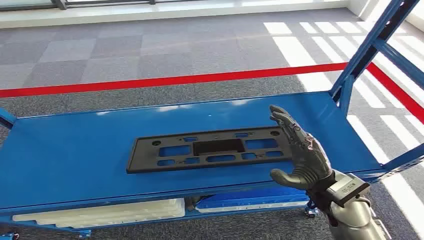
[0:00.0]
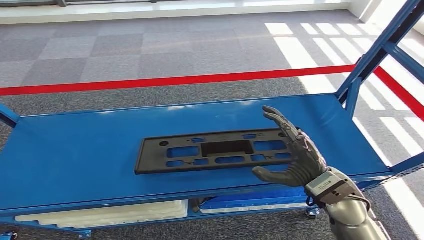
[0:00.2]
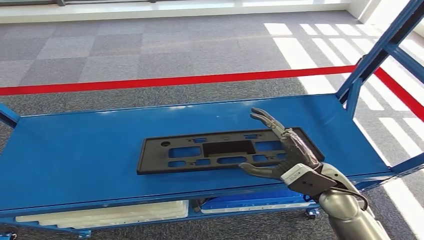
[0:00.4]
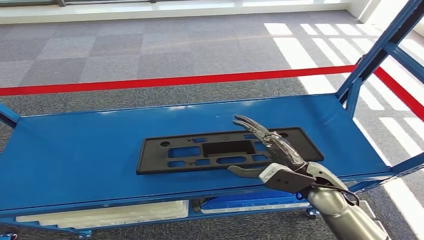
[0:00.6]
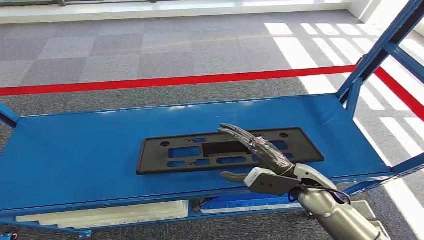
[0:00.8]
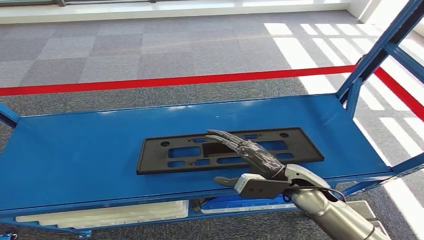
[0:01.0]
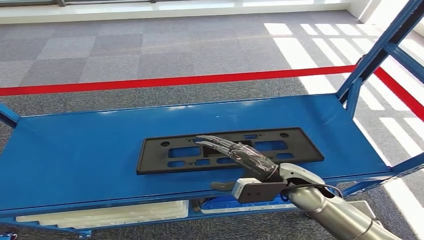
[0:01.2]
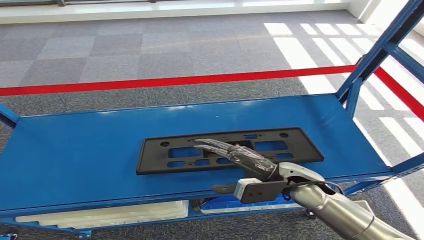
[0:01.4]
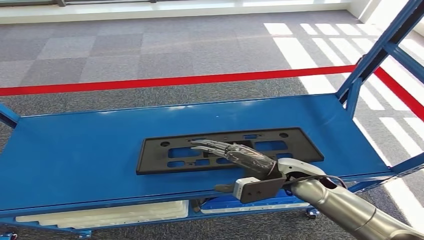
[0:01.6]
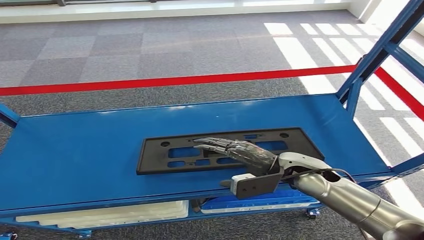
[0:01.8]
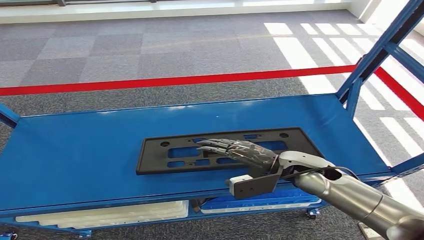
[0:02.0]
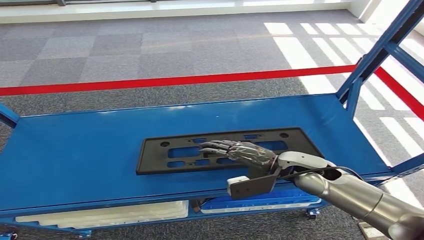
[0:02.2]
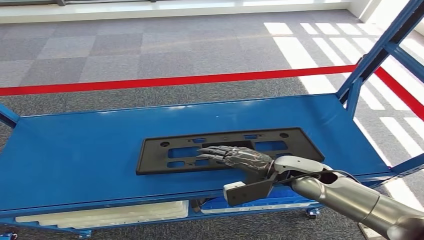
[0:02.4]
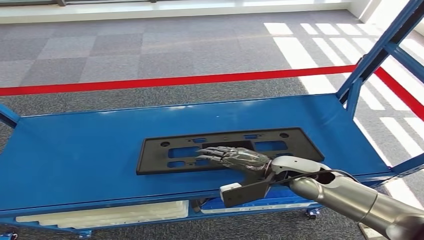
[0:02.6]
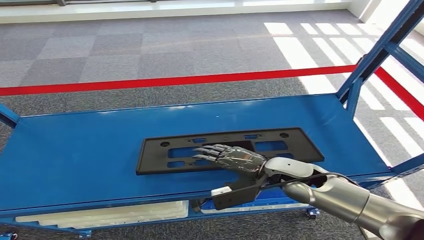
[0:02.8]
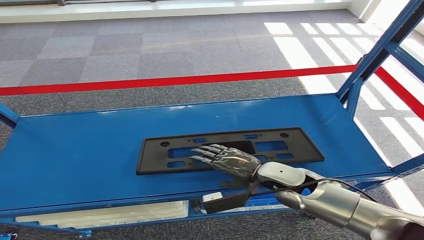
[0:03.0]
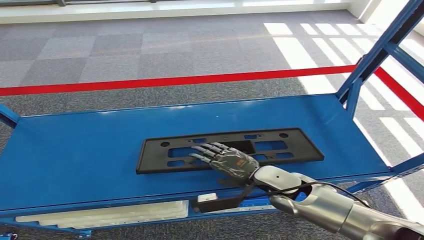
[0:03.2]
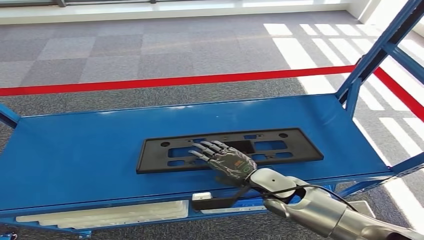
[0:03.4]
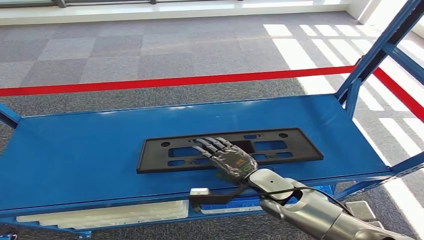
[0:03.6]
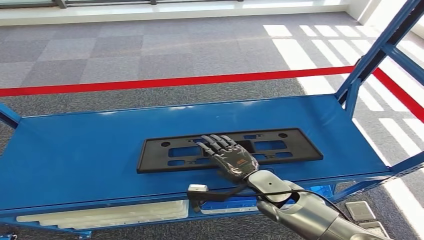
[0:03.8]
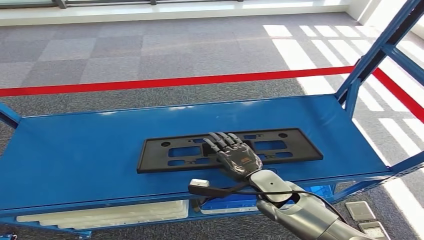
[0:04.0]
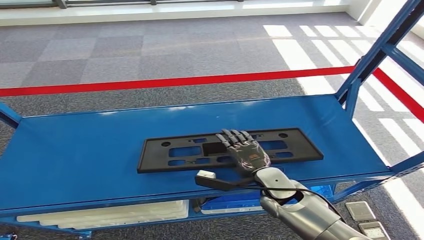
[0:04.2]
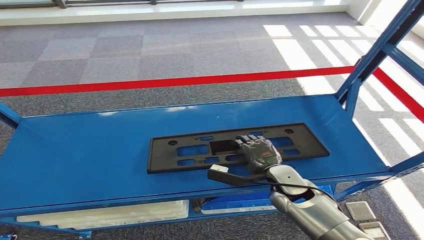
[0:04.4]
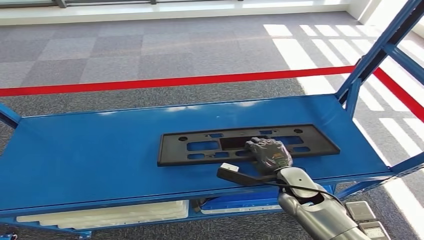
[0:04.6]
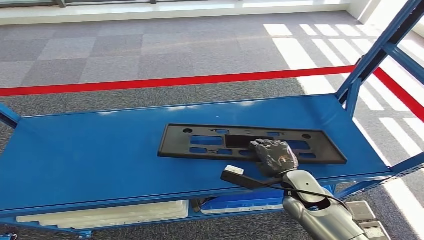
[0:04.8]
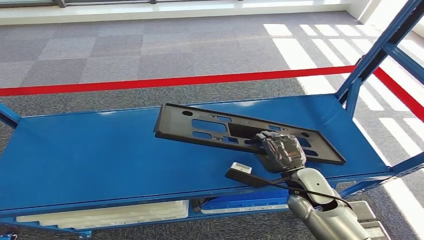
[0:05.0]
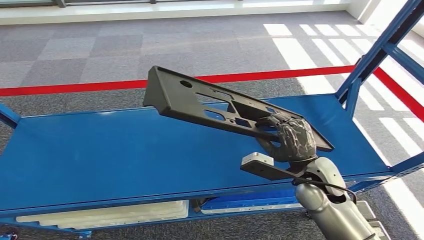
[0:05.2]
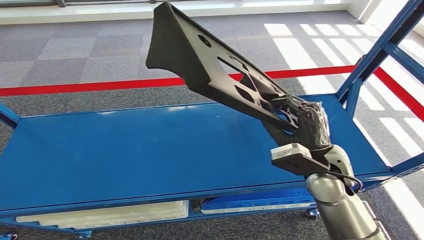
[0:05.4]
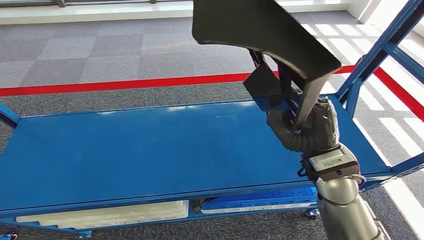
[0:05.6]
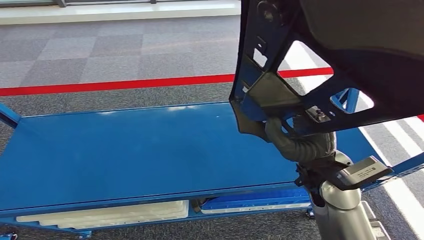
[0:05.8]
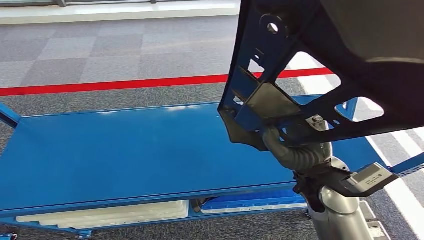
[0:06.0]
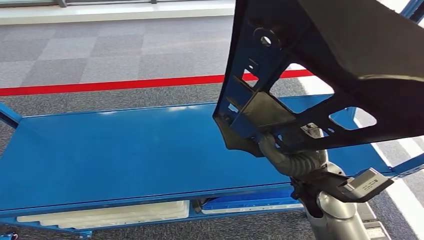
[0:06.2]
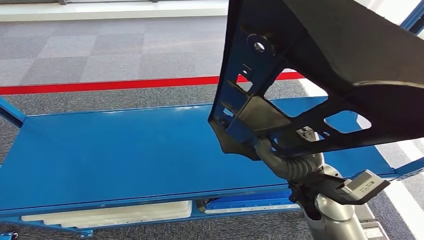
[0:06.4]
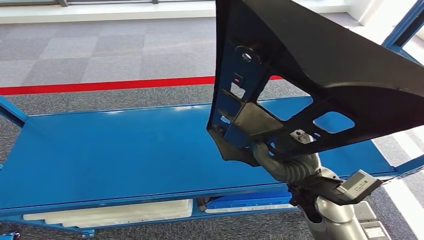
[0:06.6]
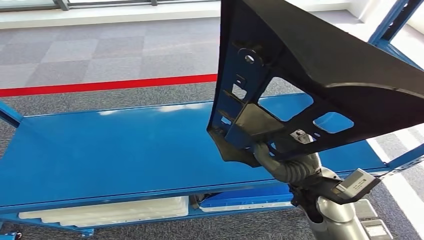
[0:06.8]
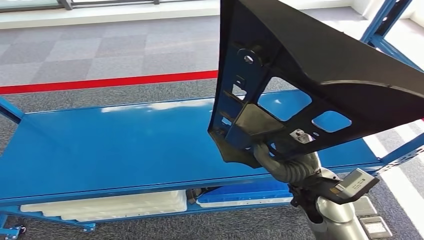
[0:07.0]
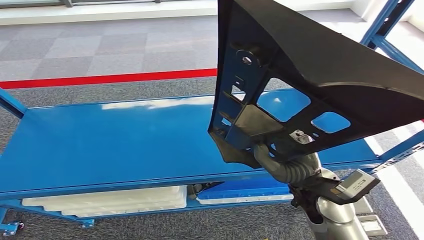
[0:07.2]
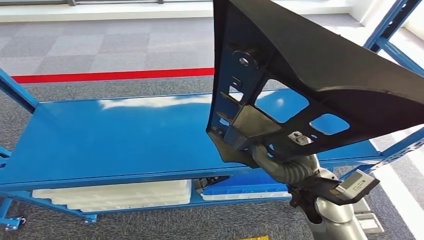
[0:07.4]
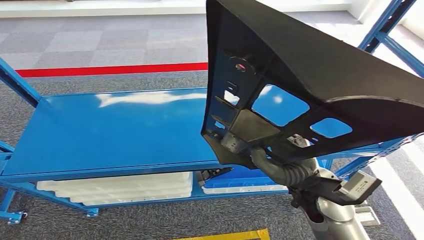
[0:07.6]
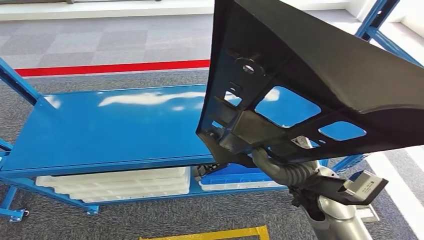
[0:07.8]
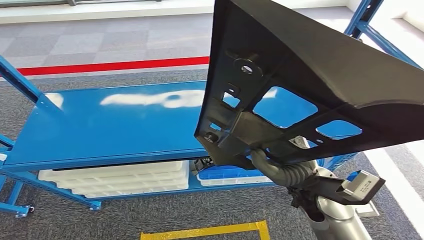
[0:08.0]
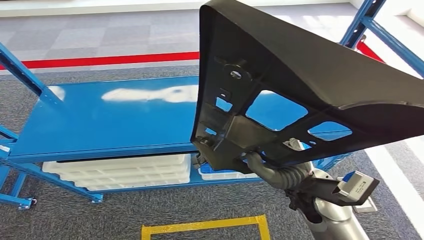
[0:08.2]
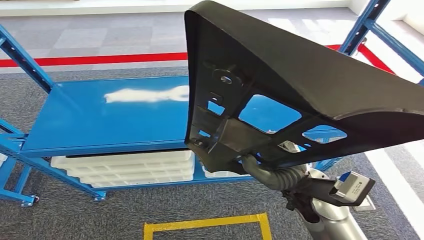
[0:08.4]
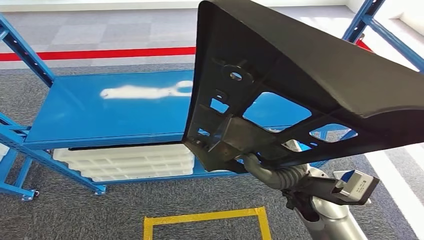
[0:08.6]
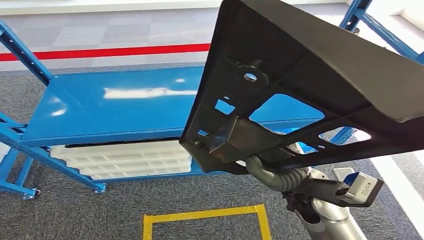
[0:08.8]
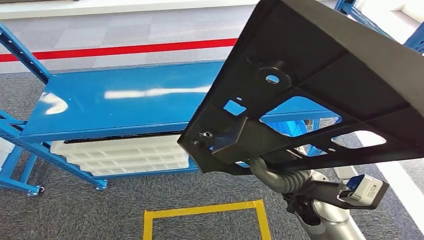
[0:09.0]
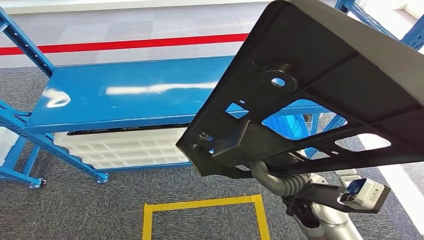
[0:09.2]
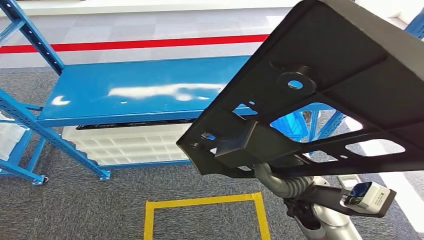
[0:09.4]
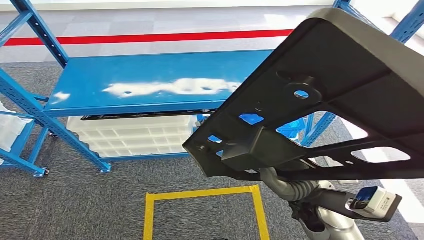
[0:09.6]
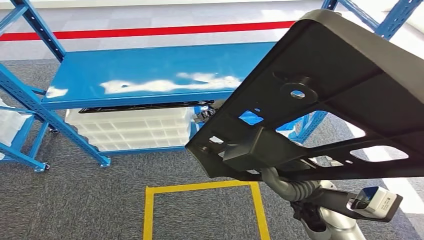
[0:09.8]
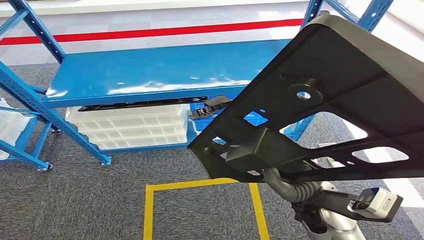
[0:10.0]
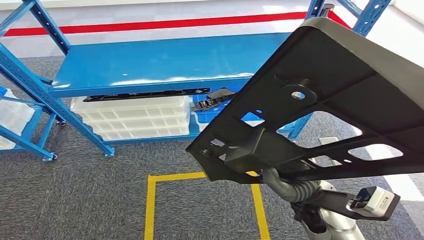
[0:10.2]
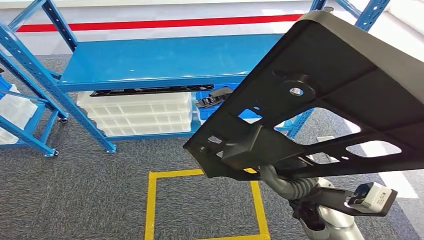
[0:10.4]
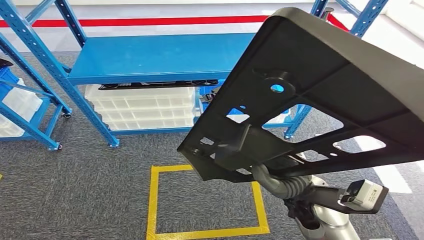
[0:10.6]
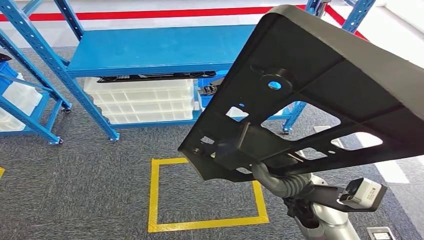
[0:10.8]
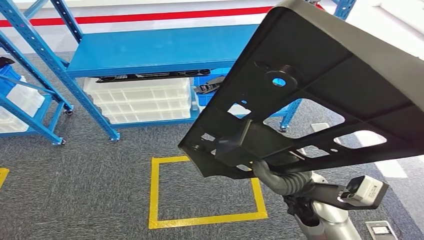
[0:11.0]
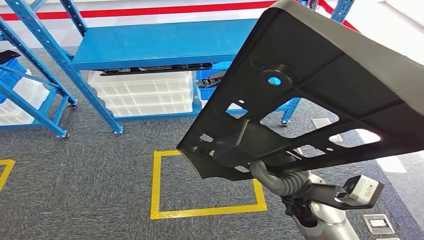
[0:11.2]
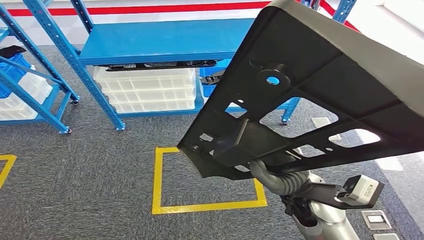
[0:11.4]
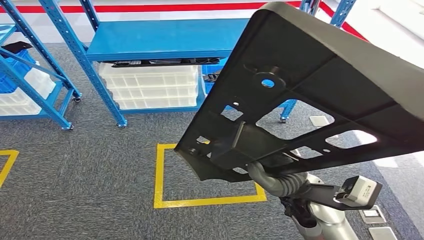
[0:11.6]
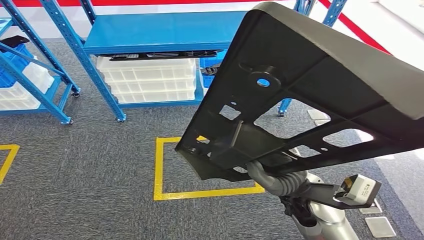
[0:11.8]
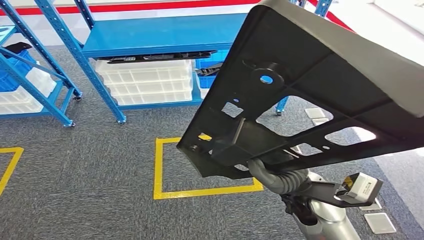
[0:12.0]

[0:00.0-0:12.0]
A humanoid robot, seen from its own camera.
Step, 0:00.0 to 0:05.0: Pick up the small component from the shelf.

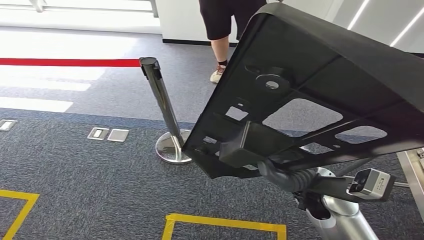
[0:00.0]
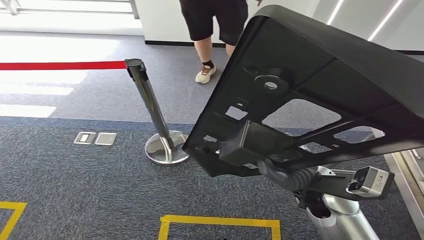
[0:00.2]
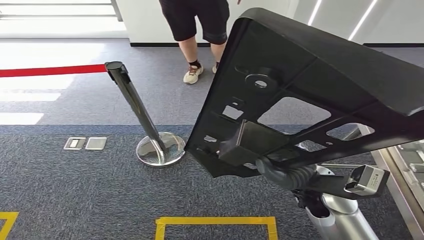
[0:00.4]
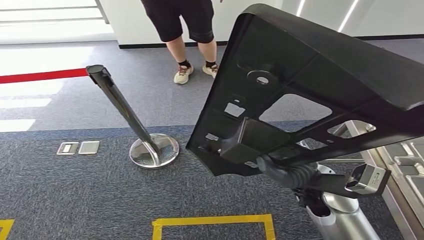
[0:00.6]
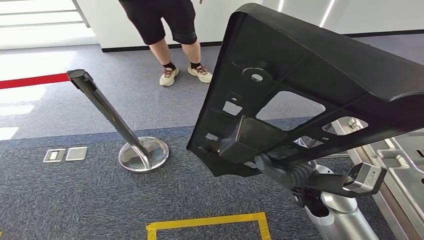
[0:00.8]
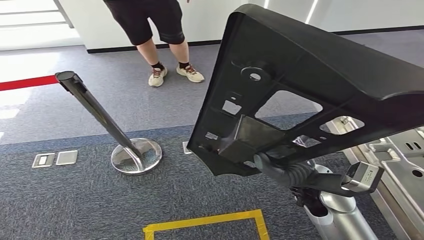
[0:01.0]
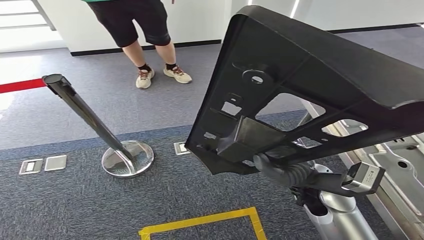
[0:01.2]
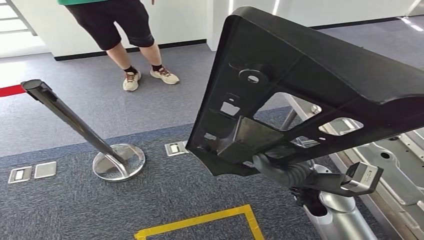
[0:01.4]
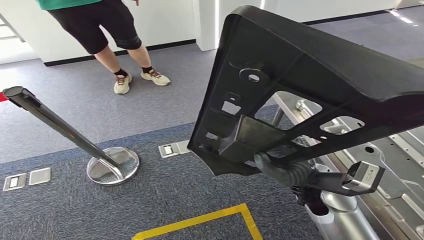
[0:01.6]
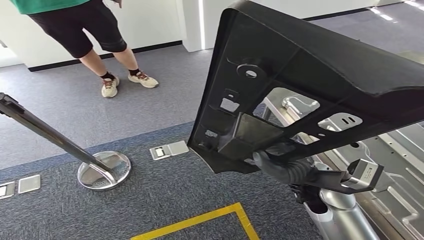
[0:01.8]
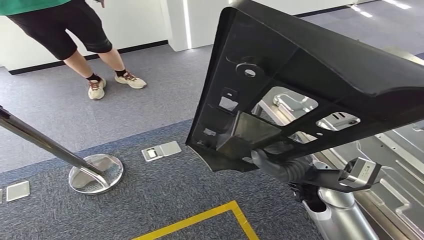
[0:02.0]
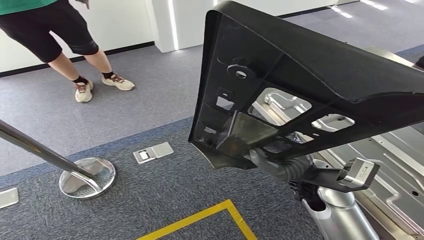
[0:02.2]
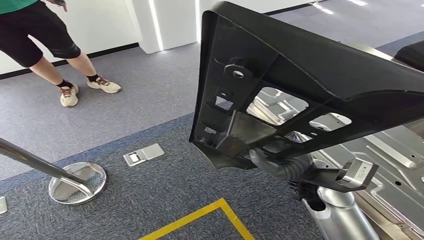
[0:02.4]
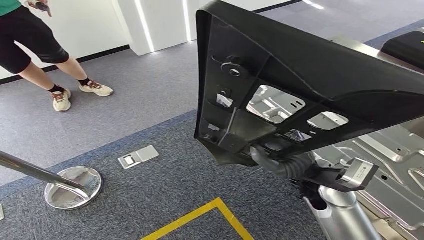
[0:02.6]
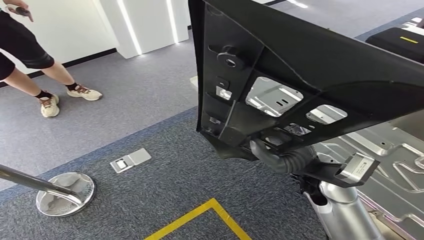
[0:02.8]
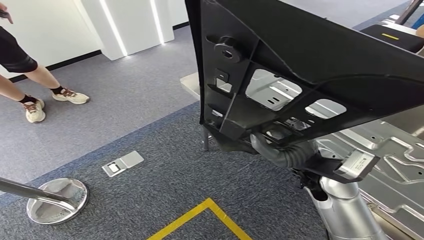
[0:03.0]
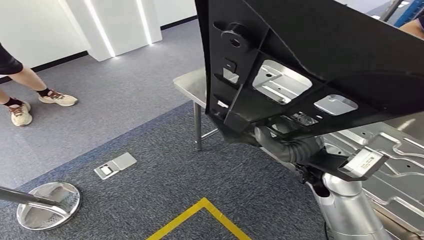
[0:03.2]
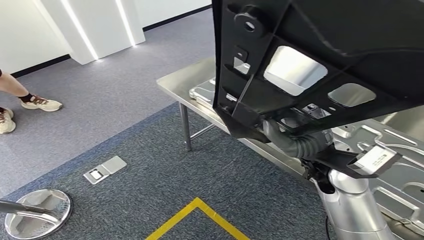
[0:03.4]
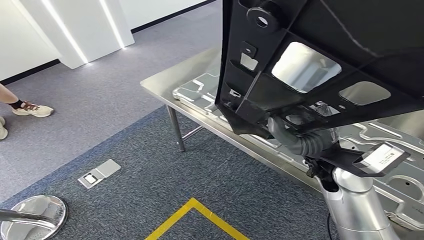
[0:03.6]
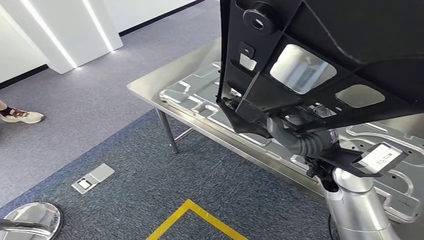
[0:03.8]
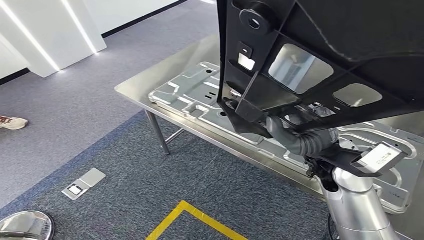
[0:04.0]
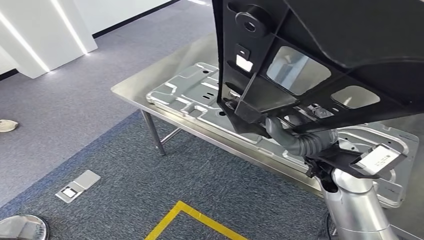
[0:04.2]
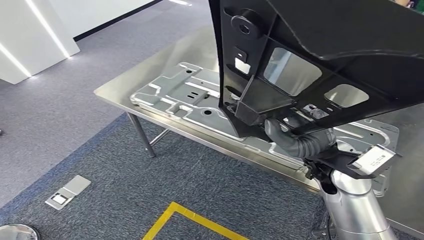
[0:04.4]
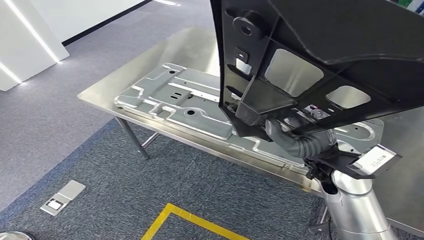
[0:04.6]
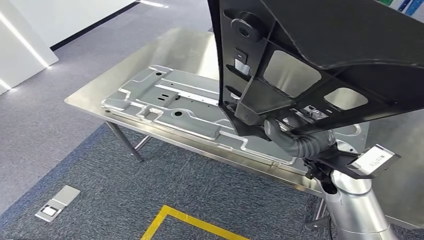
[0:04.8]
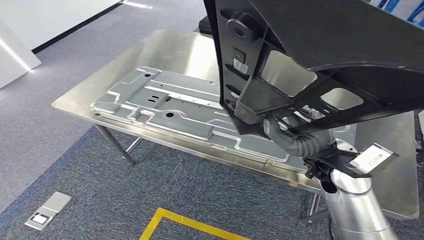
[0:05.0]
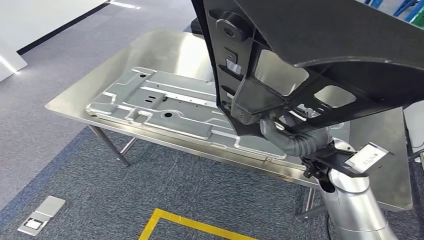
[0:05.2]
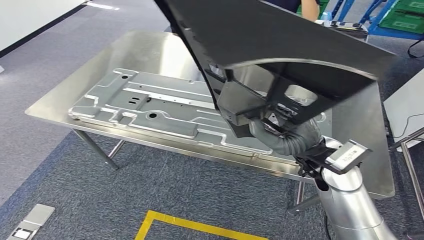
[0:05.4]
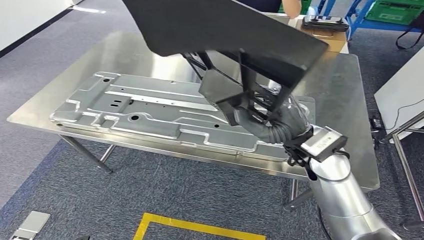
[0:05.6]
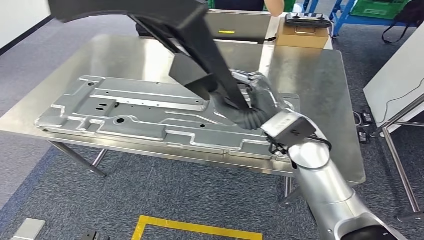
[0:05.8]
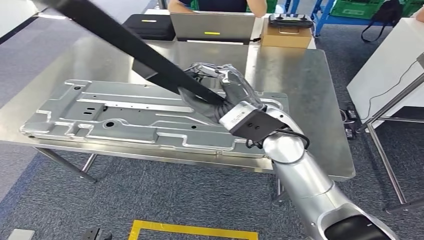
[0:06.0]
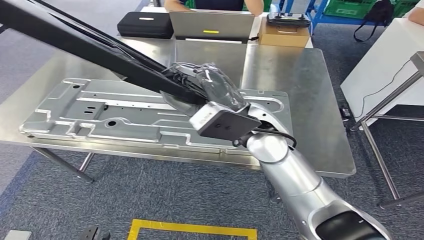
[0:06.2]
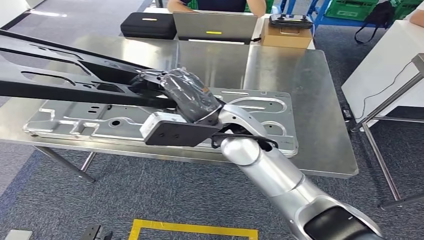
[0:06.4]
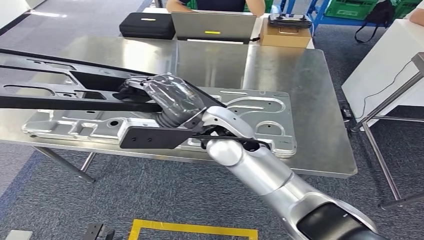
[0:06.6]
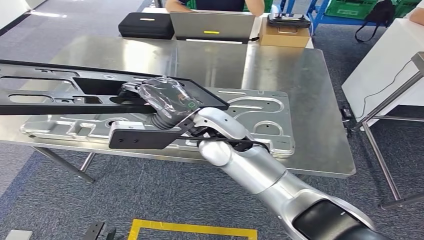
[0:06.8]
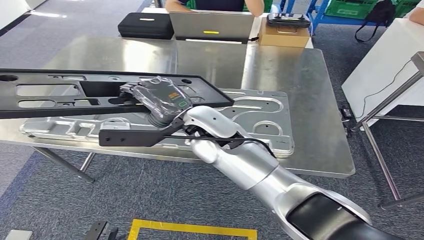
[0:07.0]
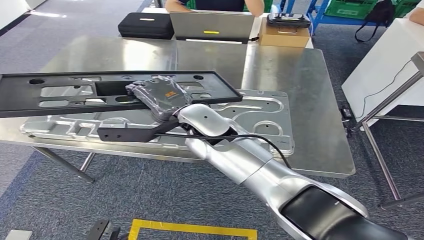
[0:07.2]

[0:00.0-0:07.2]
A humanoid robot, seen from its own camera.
Step, 0:00.0 to 0:07.0: Bring the small component to the front of the workbench.
